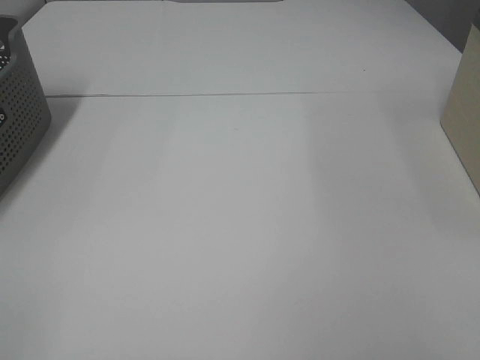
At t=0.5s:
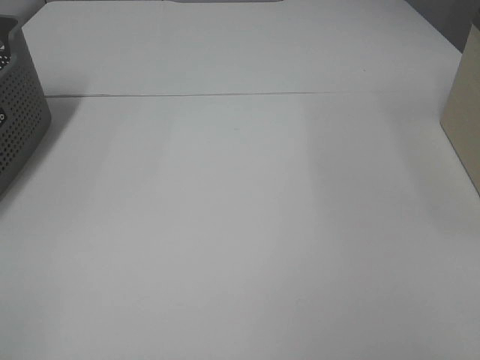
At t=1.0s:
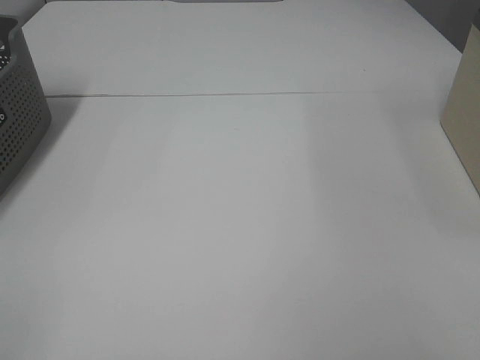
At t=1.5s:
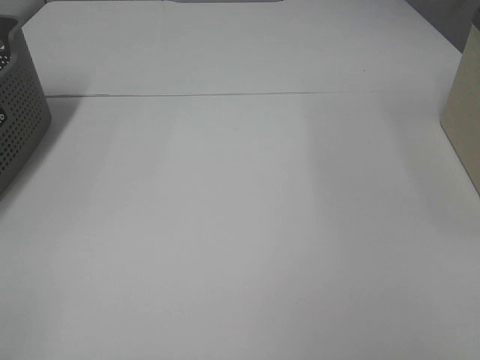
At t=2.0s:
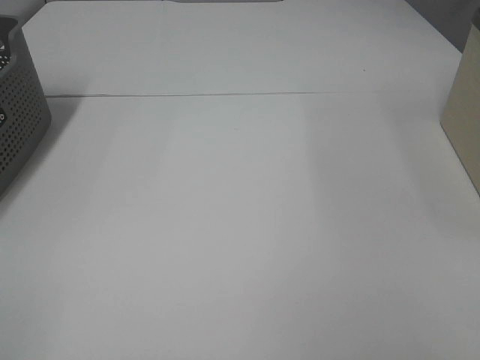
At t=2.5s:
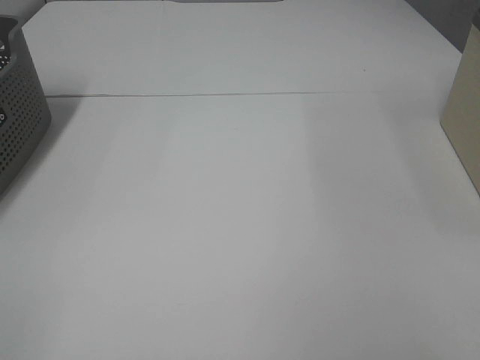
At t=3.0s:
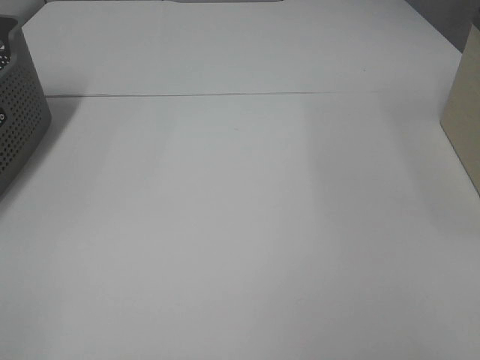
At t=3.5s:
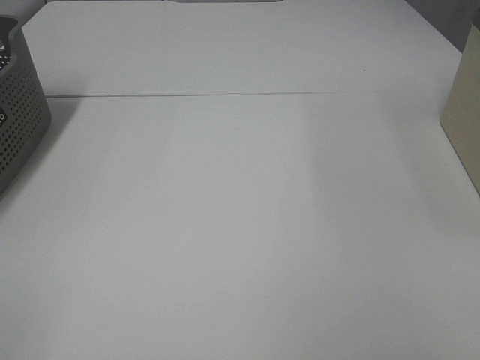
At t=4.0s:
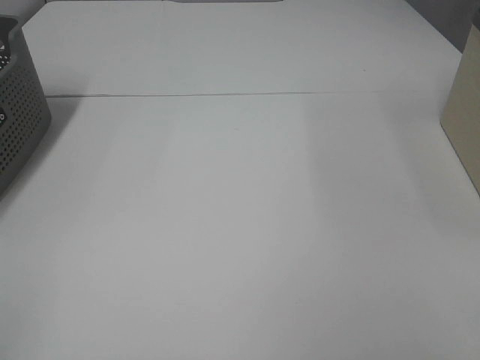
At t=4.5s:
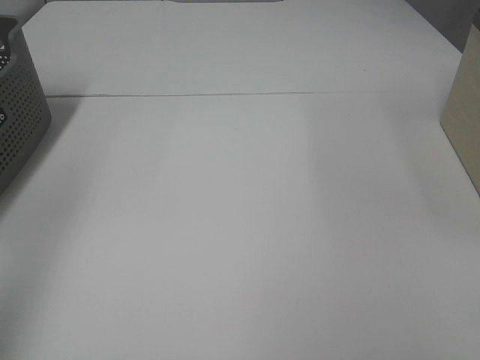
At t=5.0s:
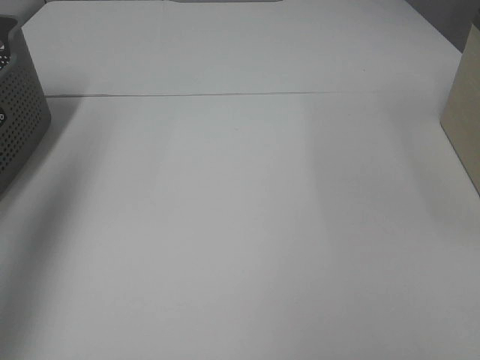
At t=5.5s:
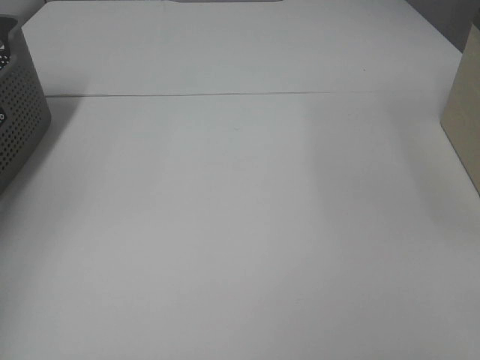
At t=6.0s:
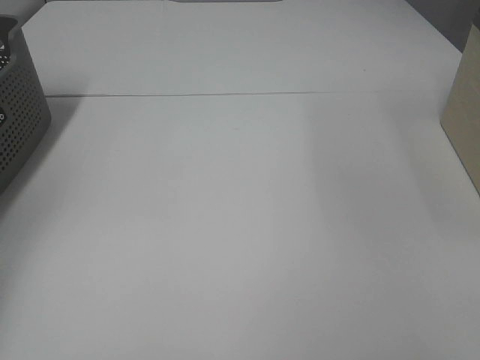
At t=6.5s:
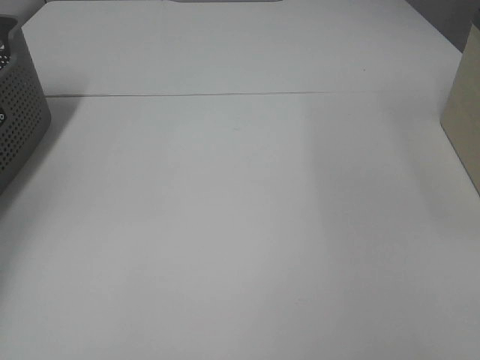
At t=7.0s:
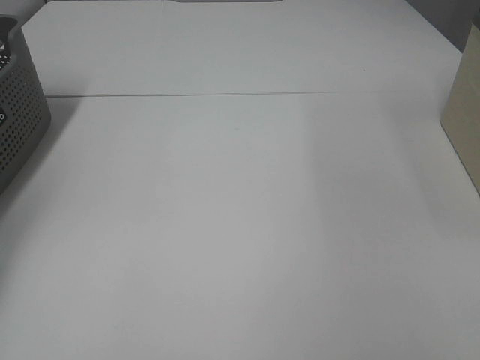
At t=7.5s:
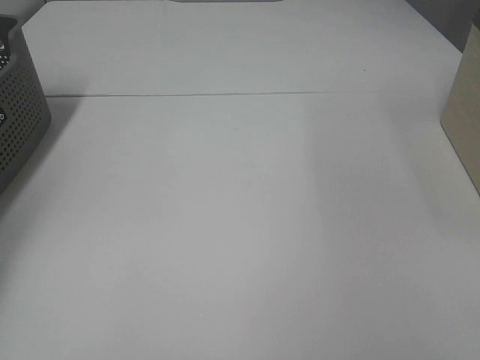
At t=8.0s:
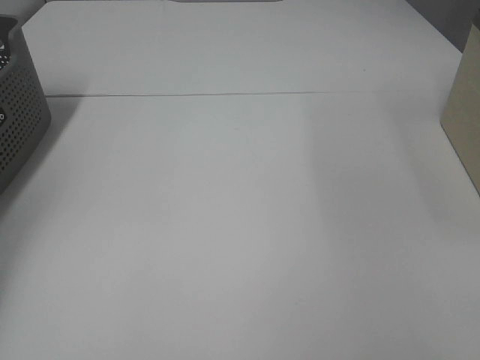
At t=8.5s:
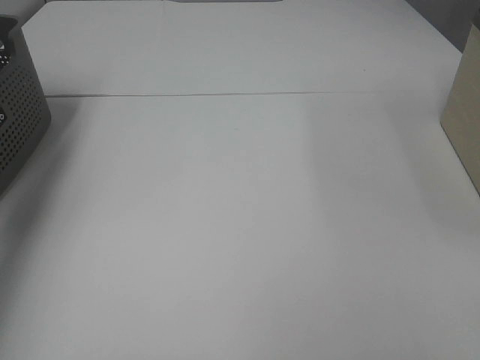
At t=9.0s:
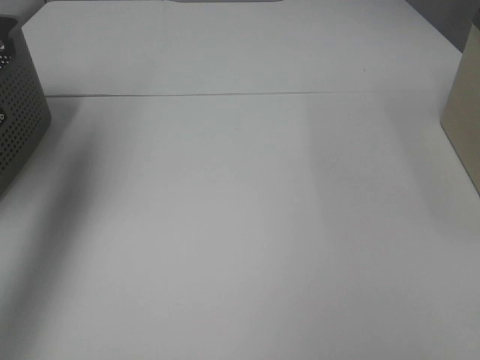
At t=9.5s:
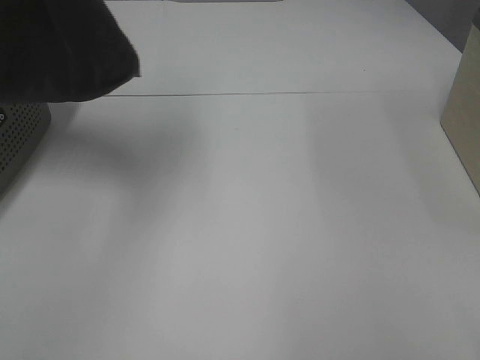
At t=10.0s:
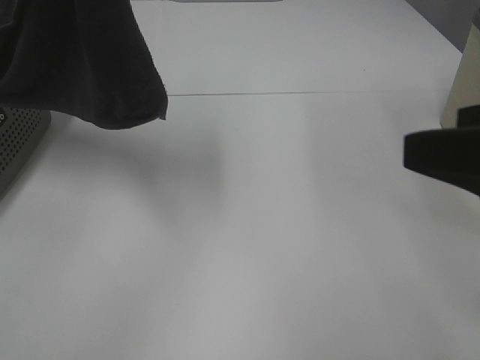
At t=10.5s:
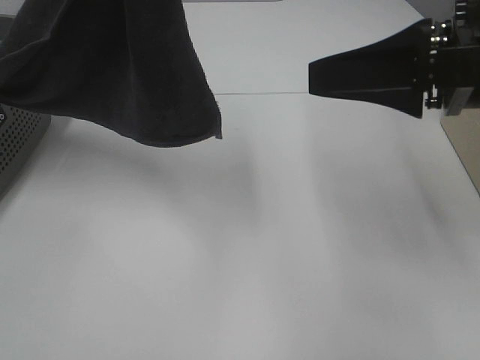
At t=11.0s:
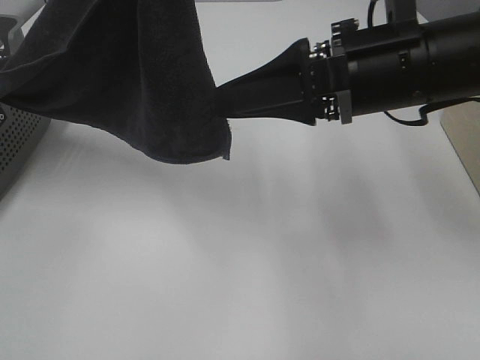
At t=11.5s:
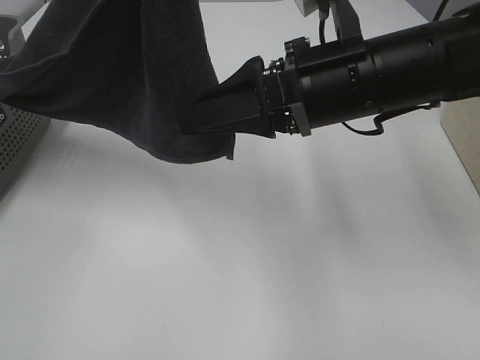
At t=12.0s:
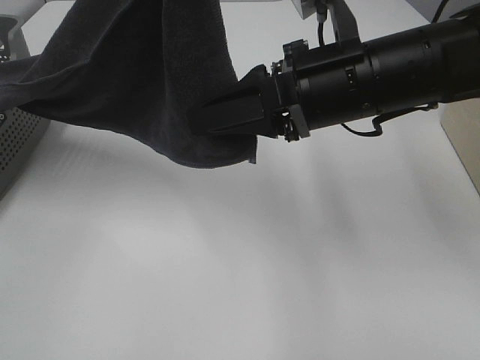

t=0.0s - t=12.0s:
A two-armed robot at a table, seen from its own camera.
Task of the whole recording: Remove the towel and place it.
t=0.0s - t=4.0s: Both grippers stay about where they are.
t=4.0s - t=6.0s: The left gripper travels forward by roughly 40 cm.
t=8.0s - t=10.0s: The left gripper is displaced to the right, upward and backward by about 40 cm. Meanwhile the right gripper moves forward, about 15 cm.
t=10.0s - t=12.0s: The left gripper goes about 5 cm to the right, while the right gripper moves forward, to the left and downward, about 20 cm, and closes its fingers.

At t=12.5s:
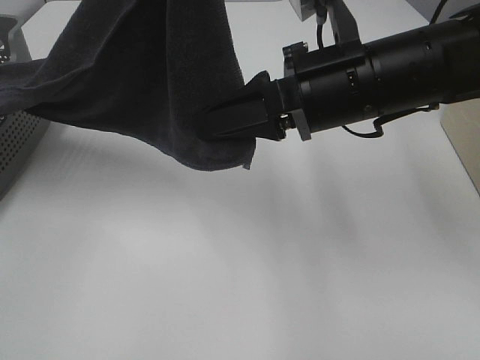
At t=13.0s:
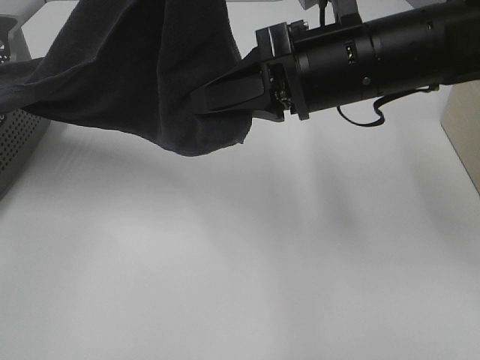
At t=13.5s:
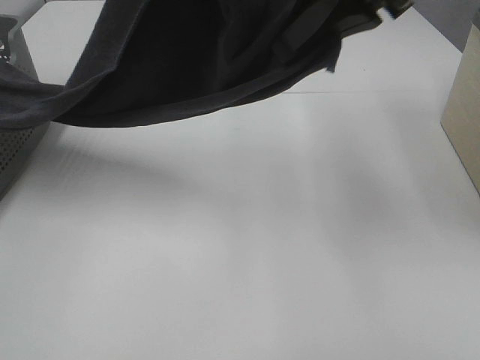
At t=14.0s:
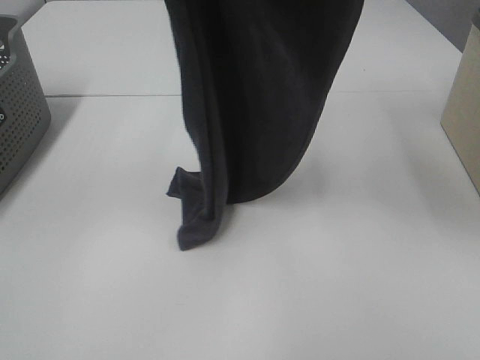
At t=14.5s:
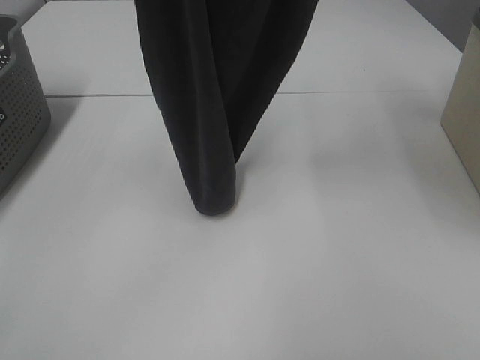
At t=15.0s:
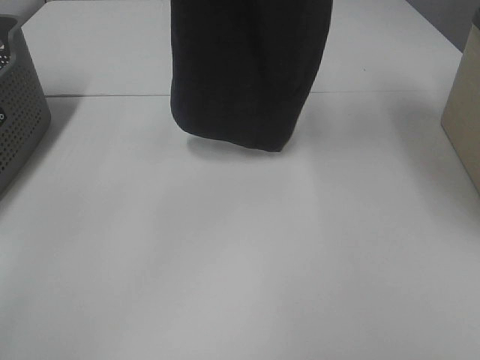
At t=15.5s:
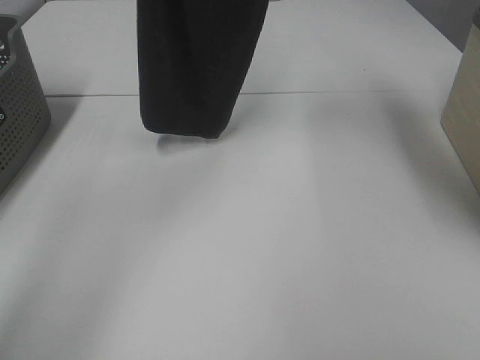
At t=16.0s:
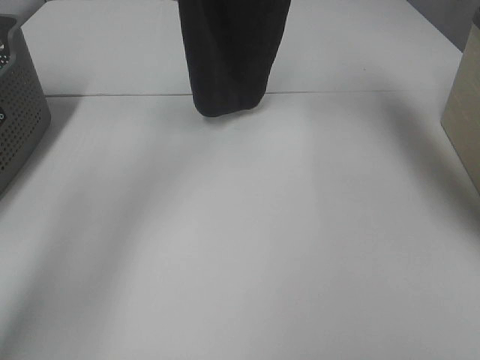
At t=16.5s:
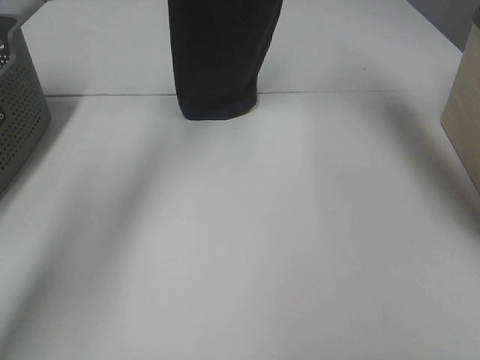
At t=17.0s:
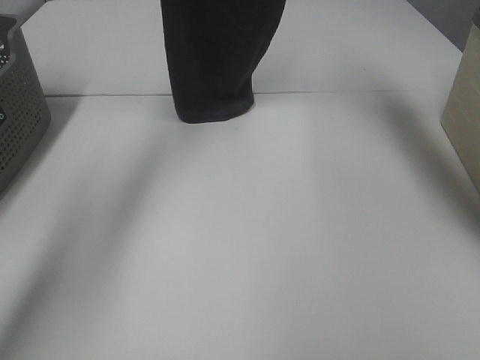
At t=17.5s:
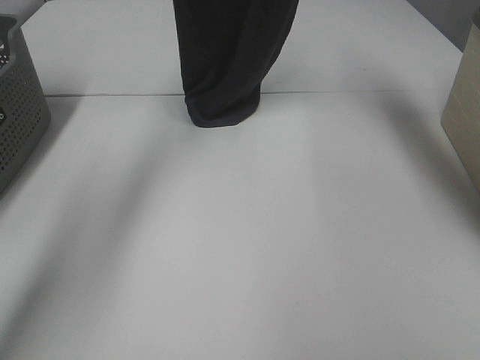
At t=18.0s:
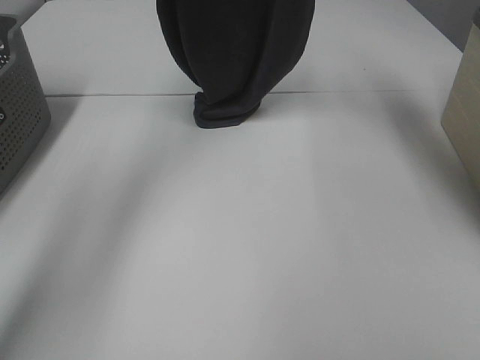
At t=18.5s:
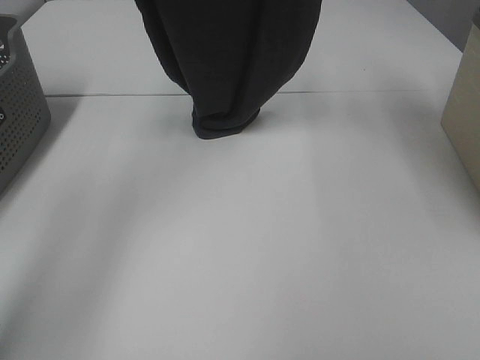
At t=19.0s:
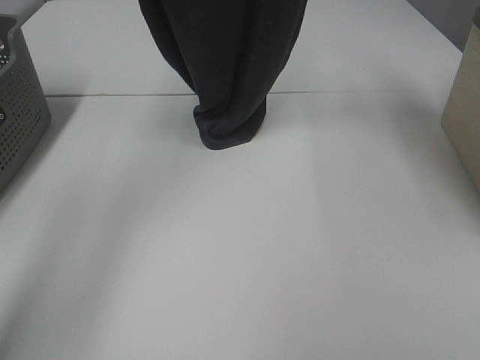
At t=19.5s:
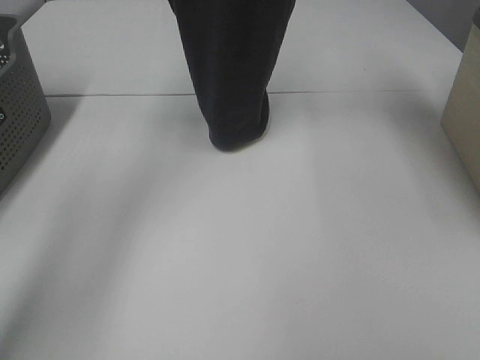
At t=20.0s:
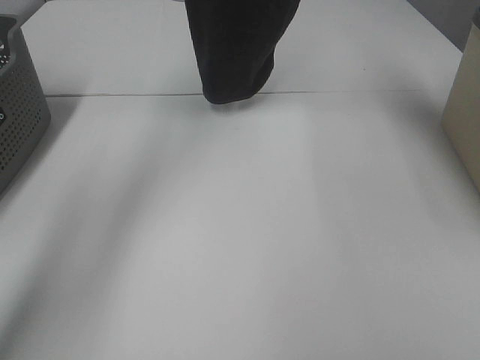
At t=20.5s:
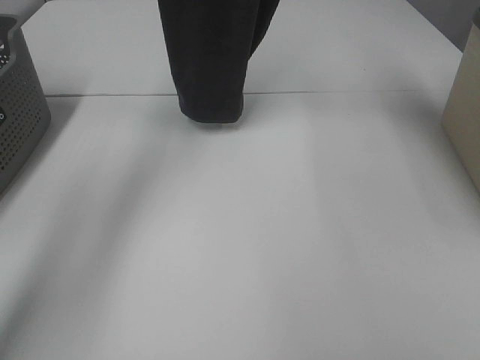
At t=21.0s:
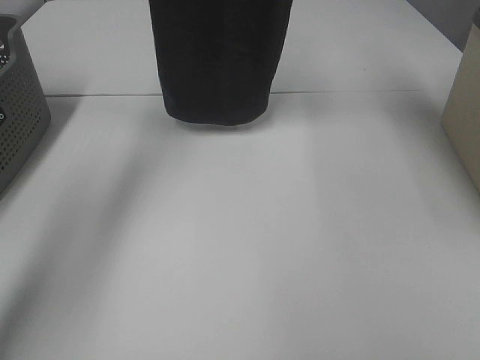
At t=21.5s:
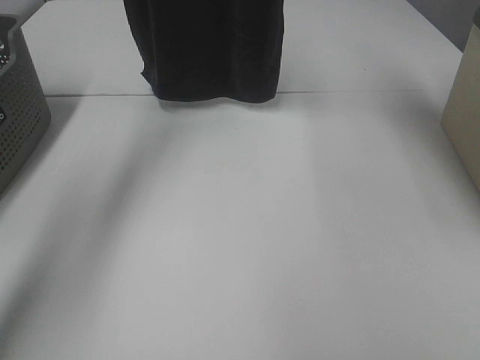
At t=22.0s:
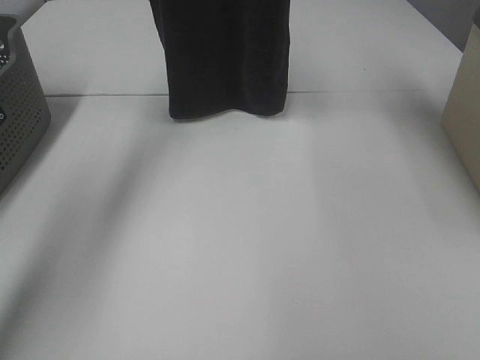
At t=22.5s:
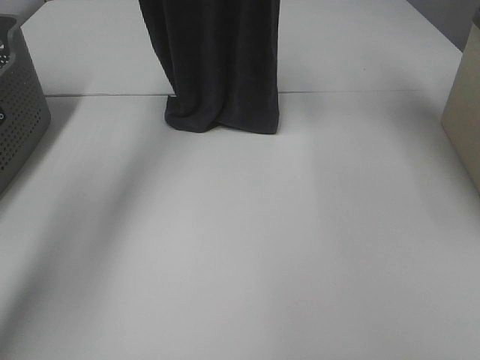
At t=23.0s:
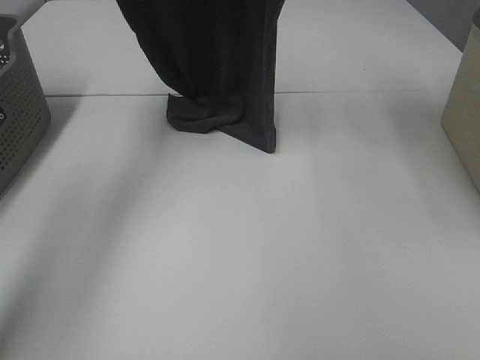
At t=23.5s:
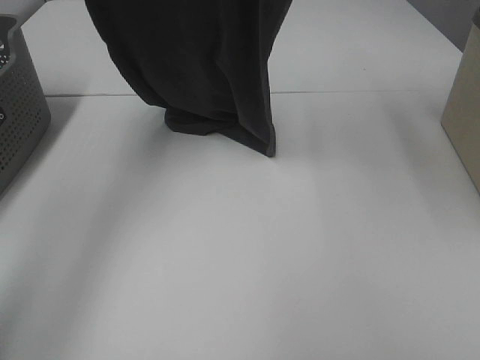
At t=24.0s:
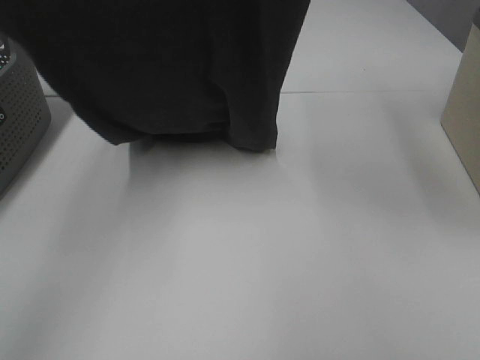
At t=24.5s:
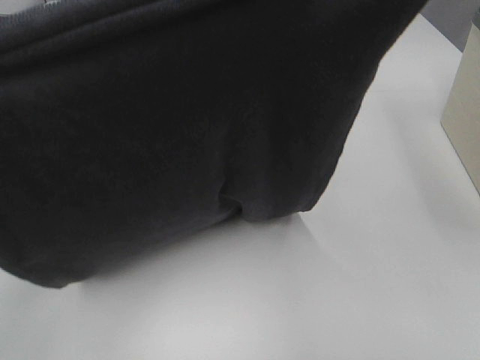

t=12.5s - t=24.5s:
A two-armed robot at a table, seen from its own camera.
Task of the whole recording: Remove the towel and place it.
Step, t=14.0s - t=23.0s: Left hand: spread the grey towel flat on the table.
Step, t=14.0s - t=23.0s: Right hand: spread the grey towel flat on the table.
t=12.5s - t=14.5s: The left gripper travels forward by approximately 10 cm. Meanwhile the right gripper heads upward, covering roughly 25 cm.
t=14.5s - t=16.5s: Both grippers travel together forward, about 15 cm.
t=16.5s - t=18.5s: The two grippers go approximately 5 cm backward.
t=18.5s - t=20.5s: The left gripper heads forward, covering some 5 cm.
t=20.5s - t=22.5s: The left gripper travels downward by some 5 cm.
t=22.5s - t=24.5s: The left gripper heads backward, covering approximately 40 cm; the right gripper heads backward, covering some 25 cm.

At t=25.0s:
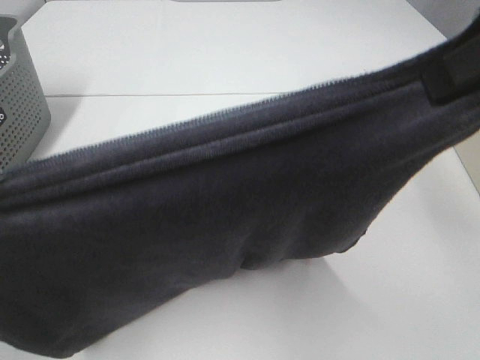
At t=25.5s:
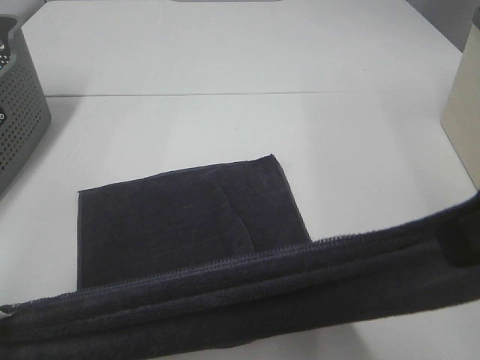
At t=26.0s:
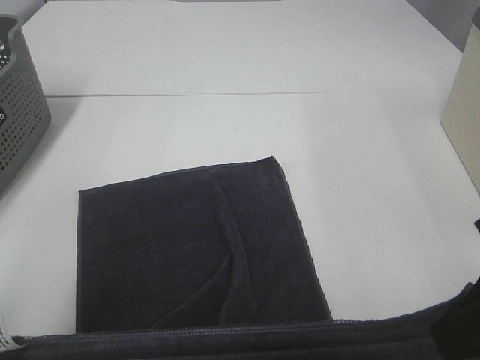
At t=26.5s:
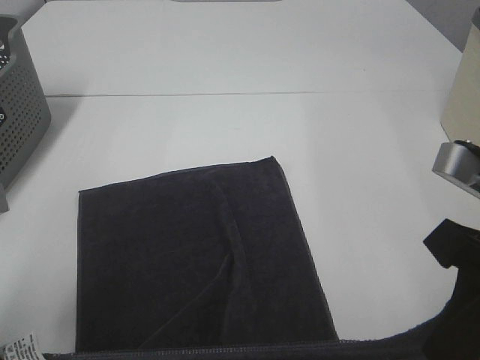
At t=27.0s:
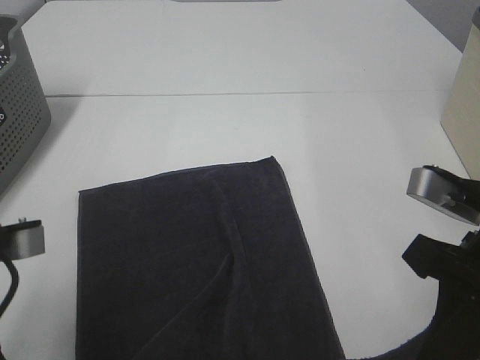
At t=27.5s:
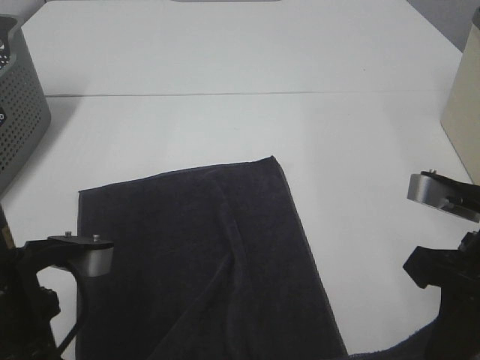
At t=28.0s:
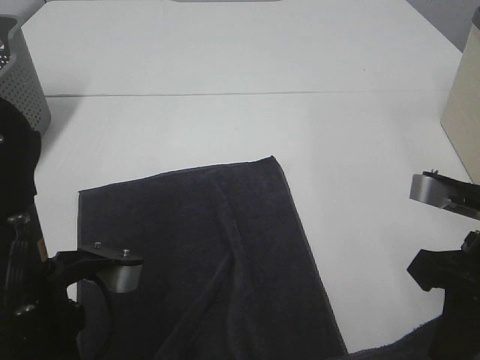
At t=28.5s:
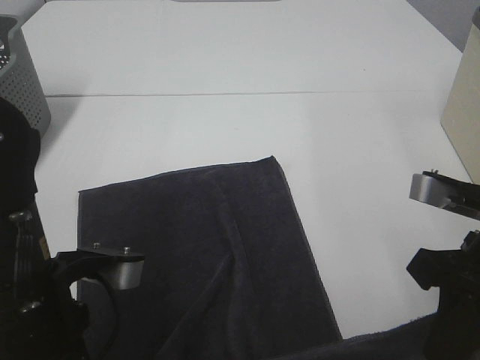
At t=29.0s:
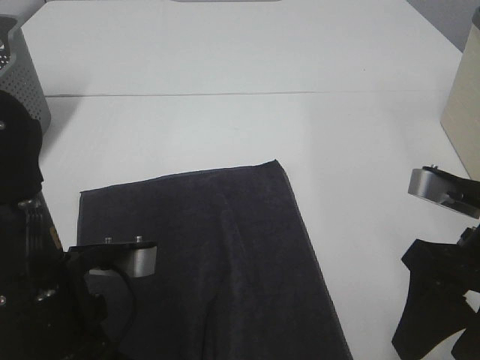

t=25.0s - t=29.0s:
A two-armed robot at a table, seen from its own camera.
Task of the whole recording: Remove the towel and place it.
t=25.0s - t=27.0s: The grippers both shift downward by roughly 15 cm.
t=27.0s - t=29.0s: The right gripper opens; the left gripper travels to the right by roughly 10 cm, and opens its fingers.
